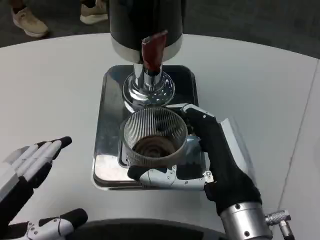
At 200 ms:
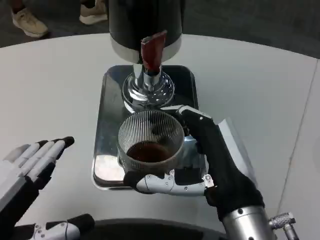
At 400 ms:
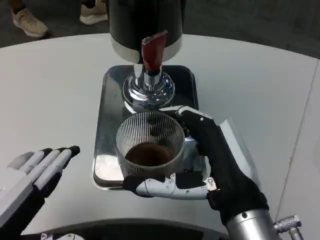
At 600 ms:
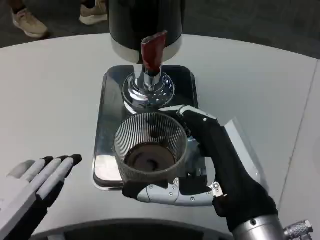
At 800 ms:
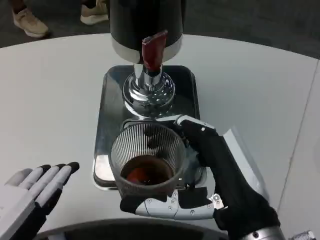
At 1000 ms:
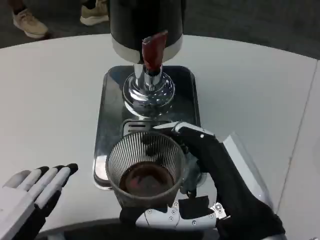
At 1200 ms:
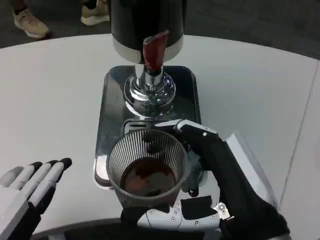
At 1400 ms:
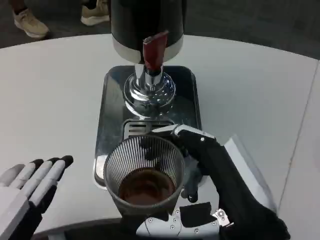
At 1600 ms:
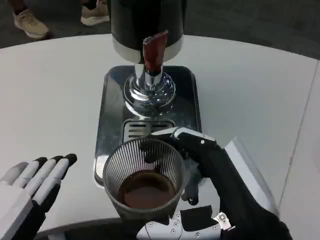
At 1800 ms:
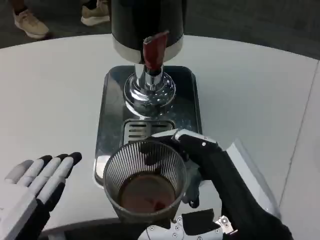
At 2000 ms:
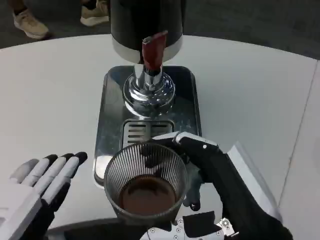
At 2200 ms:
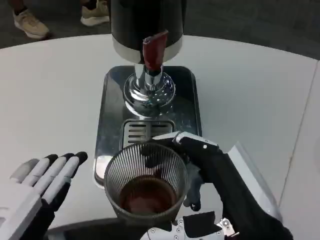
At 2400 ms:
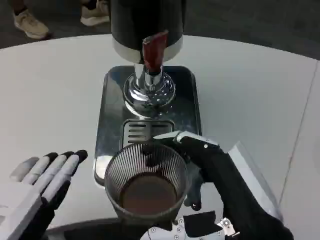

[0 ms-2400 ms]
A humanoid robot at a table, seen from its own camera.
Task of the whole recording: Grasp the cup under the faucet to collect the drink, then remove the cup.
0 ms to 1200 ms: The right hand heads backward, covering about 5 cm. Meanwhile the left hand ends up roughly 5 cm from where it was.
1200 ms to 2400 ms: The two hands keep their place.
